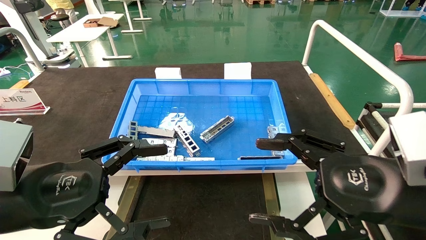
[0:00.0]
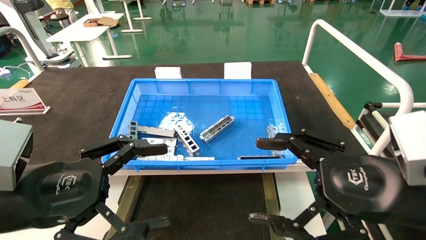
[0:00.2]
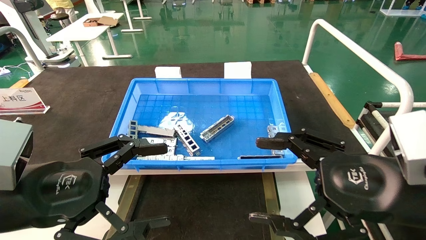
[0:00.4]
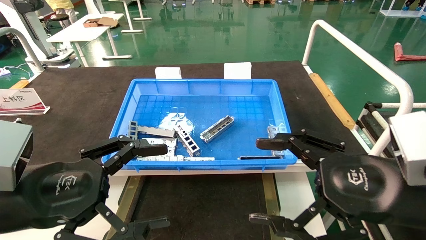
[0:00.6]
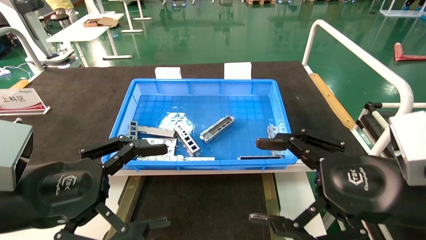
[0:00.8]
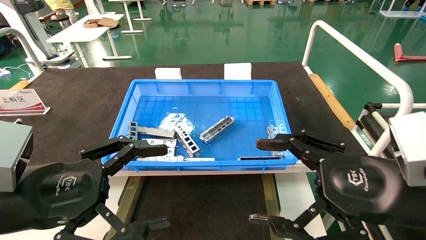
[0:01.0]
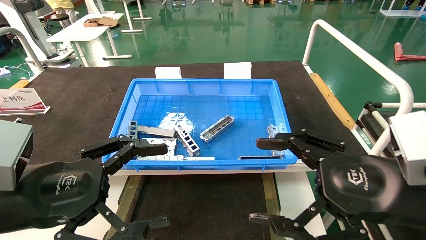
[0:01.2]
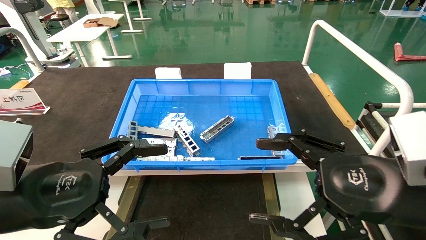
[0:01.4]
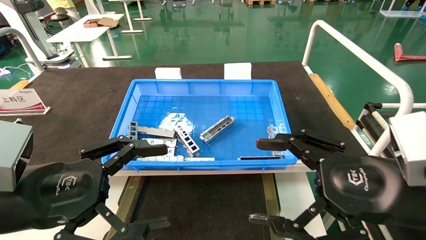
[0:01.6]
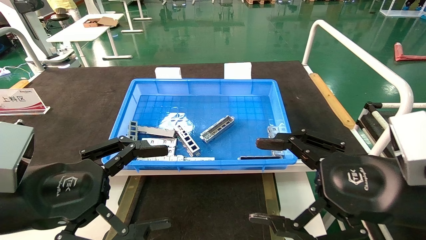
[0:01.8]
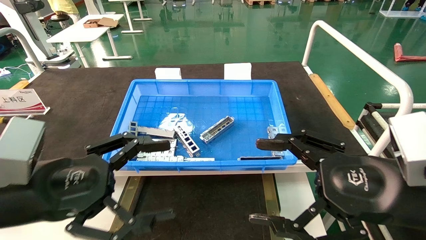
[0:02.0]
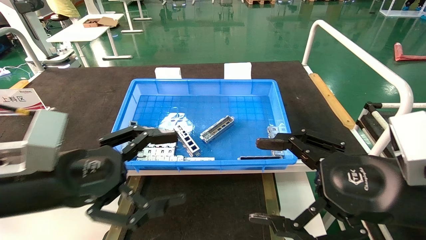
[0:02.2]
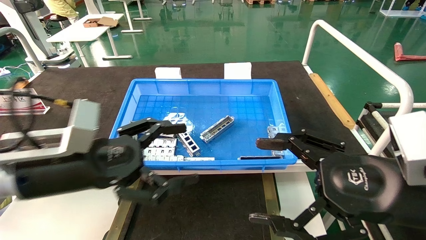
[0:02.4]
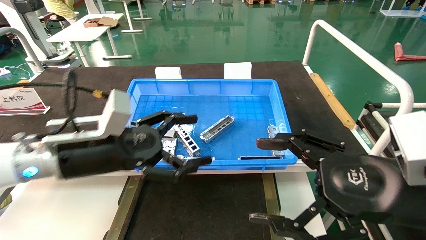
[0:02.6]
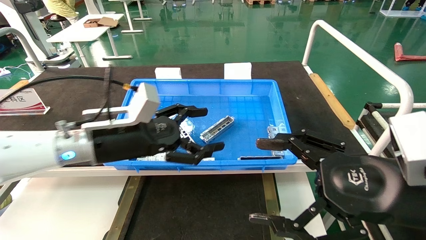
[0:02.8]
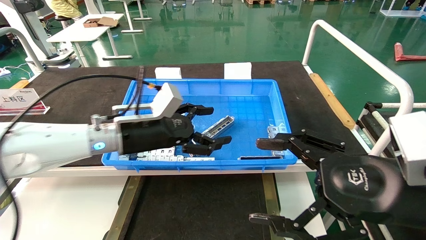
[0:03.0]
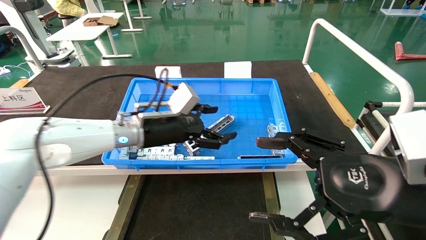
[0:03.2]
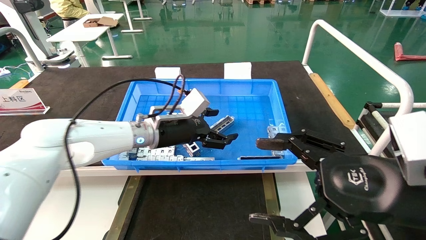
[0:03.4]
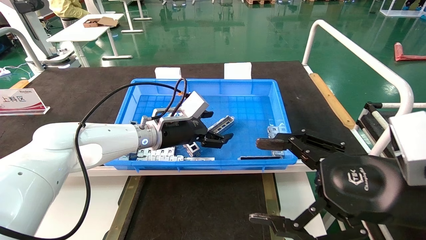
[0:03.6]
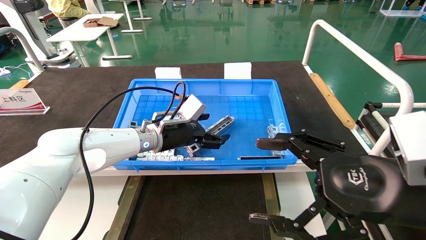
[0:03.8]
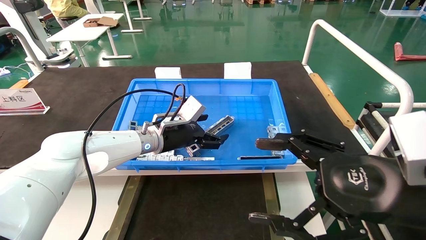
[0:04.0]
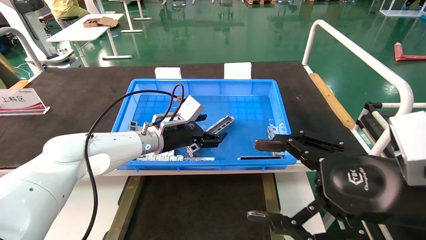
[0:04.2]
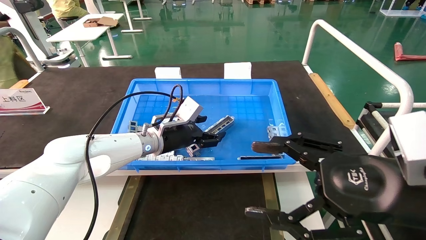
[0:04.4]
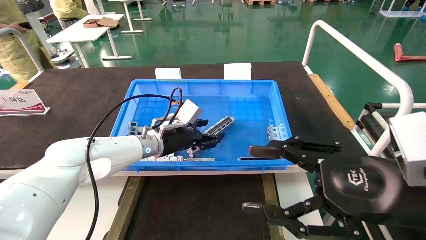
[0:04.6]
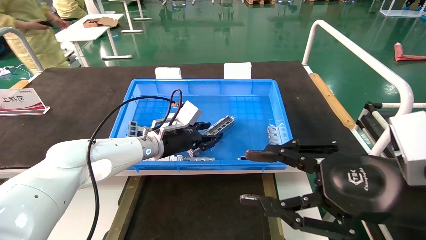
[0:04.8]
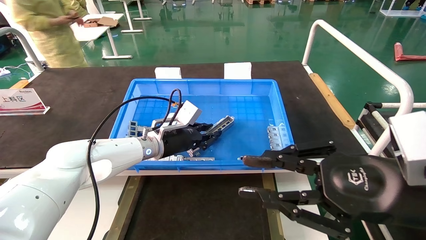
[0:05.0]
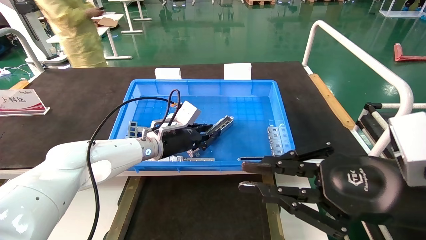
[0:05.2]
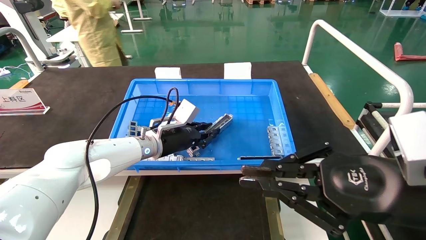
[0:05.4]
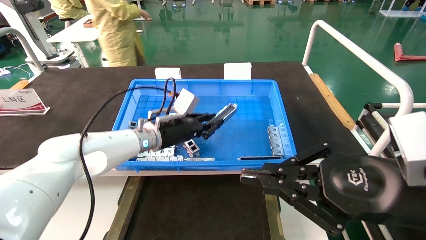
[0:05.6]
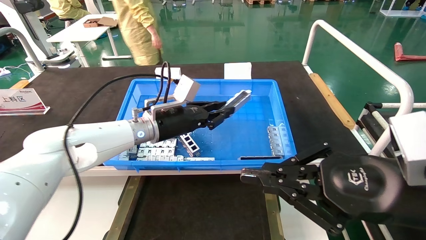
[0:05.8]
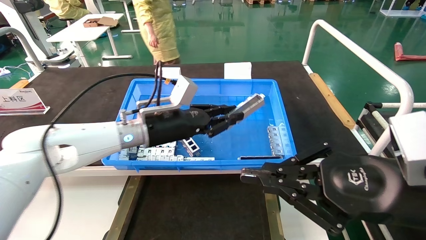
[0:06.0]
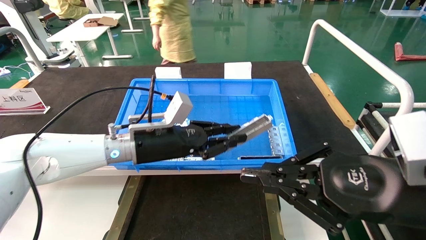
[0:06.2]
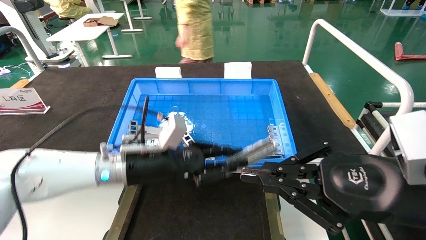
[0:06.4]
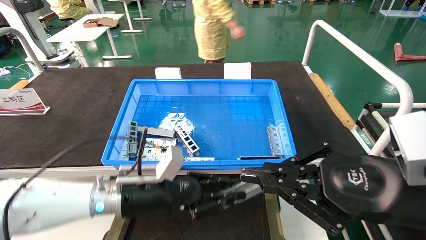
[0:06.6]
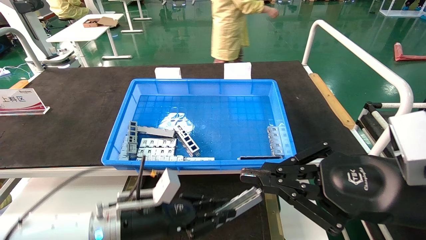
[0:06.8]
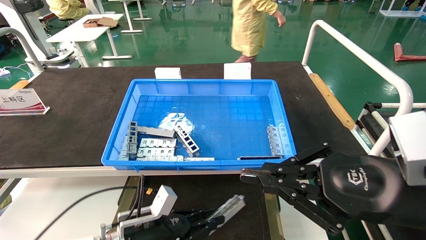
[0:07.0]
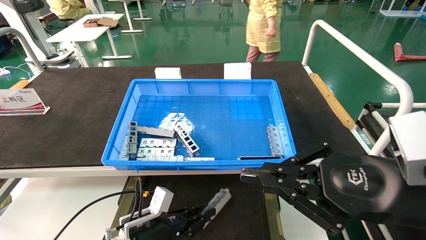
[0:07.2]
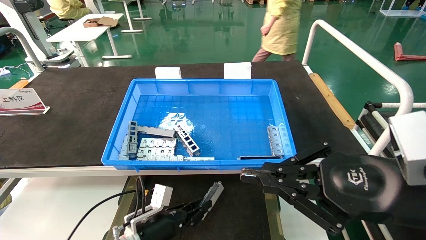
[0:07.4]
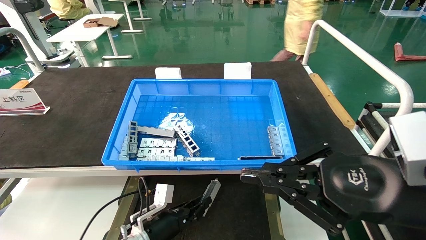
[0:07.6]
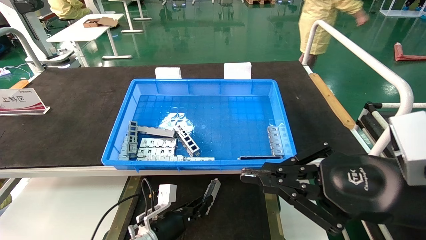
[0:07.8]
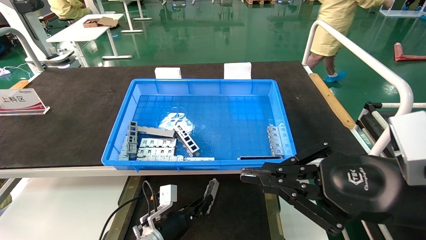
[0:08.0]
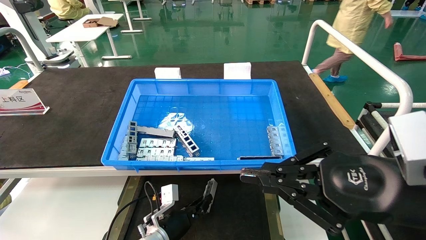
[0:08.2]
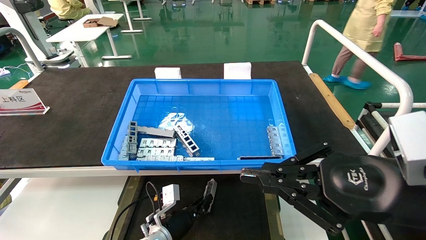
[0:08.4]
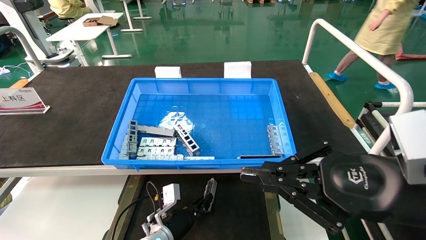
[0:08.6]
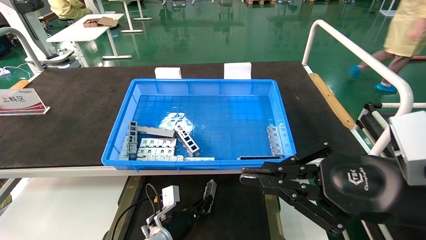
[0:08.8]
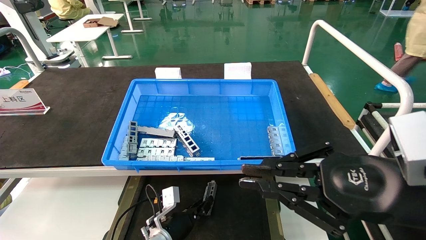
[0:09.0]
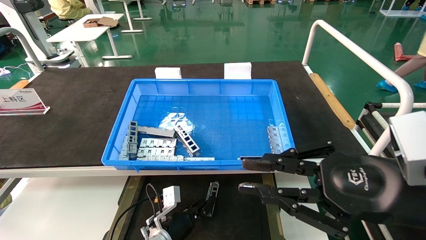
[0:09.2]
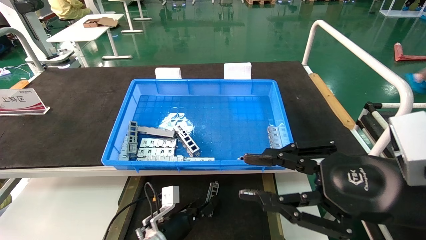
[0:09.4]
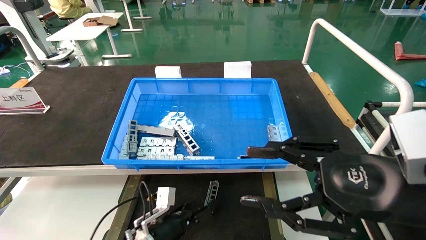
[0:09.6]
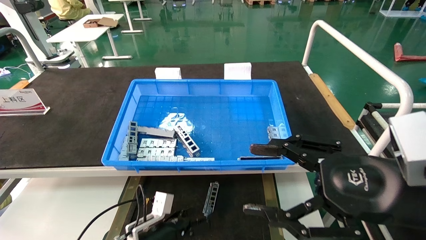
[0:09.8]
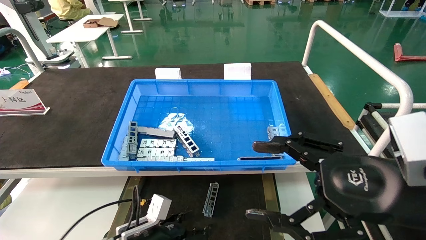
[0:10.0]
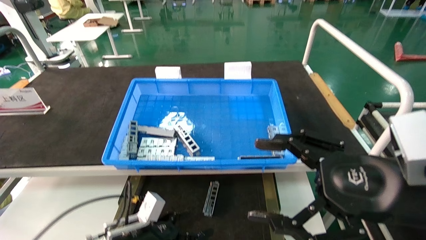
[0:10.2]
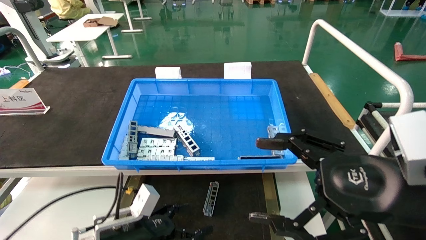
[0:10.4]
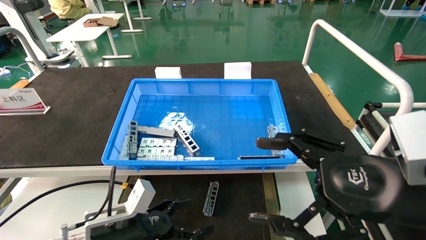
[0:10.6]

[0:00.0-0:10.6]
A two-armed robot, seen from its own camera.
Task of the whole recording: Grasp the part with one hand and place it on the black container.
Step, 0:02.2 to 0:05.8: Pick up the front USB bracket from the feeding area.
Step, 0:06.0 to 0:09.4: Place the front USB bracket into the box.
0:00.0 to 0:01.6: The two grippers keep their place.
0:01.6 to 0:03.0: The left gripper shifts roughly 20 cm forward and to the right.
0:03.0 to 0:04.6: The left gripper is displaced forward and downward by roughly 10 cm.
0:04.6 to 0:06.0: The left gripper travels backward by about 5 cm, and closes its fingers, while the right gripper closes its fingers.
0:06.0 to 0:07.6: The left gripper shifts some 25 cm downward.
0:07.6 to 0:09.0: The left gripper moves approximately 5 cm.
0:09.0 to 0:10.6: The right gripper opens up, while the left gripper is displaced upward, backward and to the left by some 20 cm, and opens its fingers.
